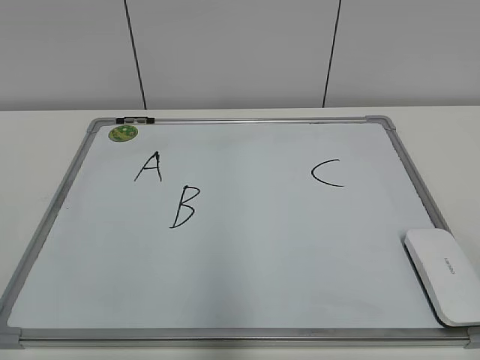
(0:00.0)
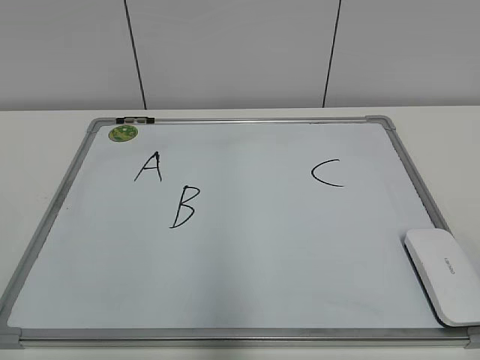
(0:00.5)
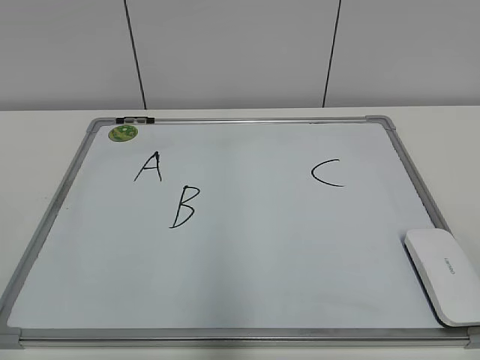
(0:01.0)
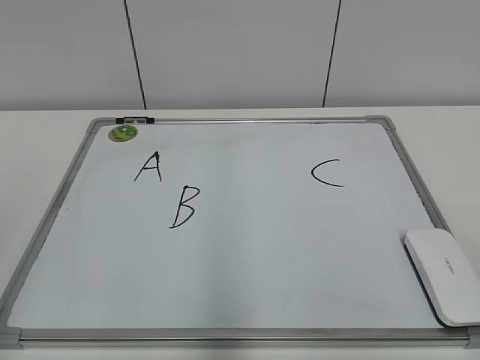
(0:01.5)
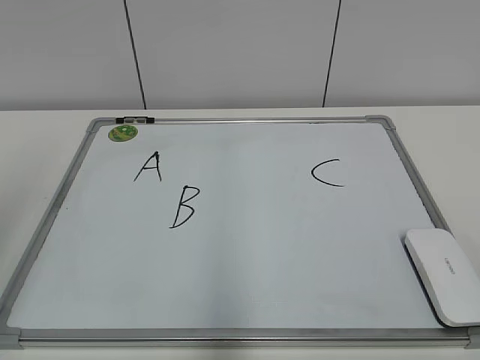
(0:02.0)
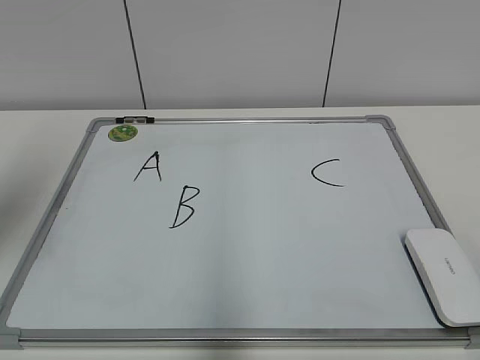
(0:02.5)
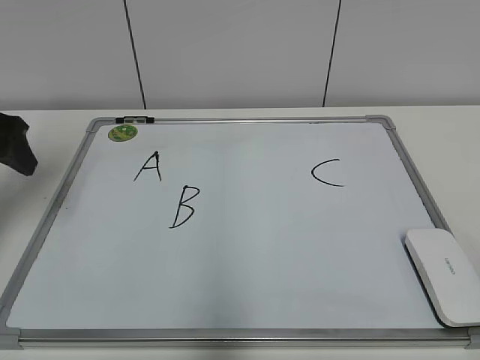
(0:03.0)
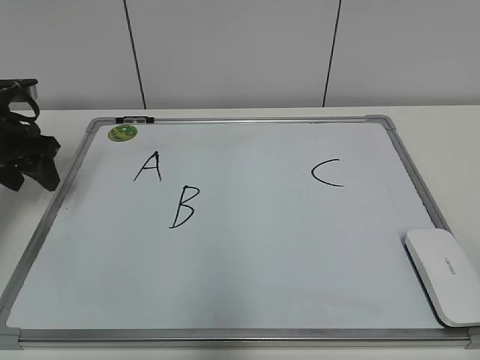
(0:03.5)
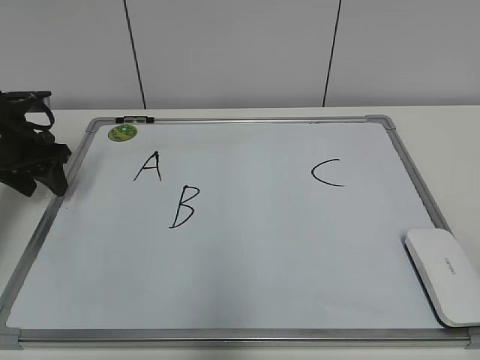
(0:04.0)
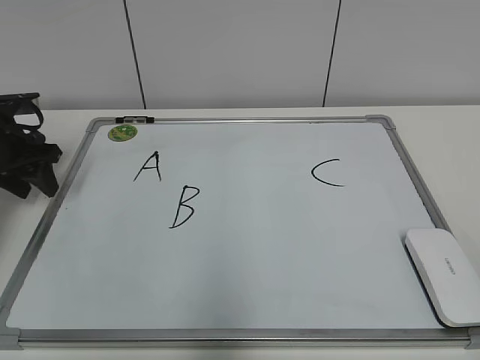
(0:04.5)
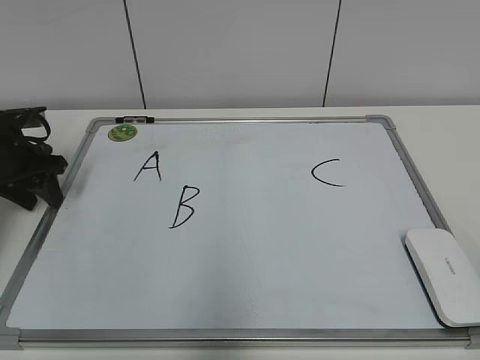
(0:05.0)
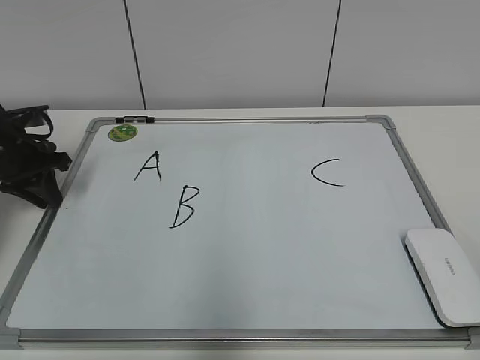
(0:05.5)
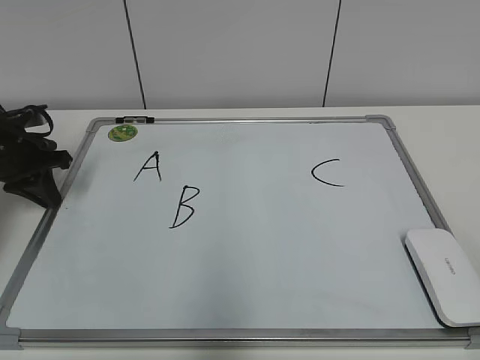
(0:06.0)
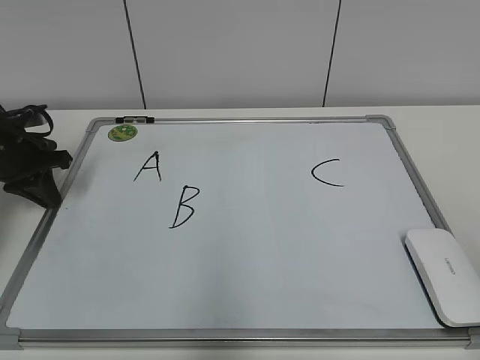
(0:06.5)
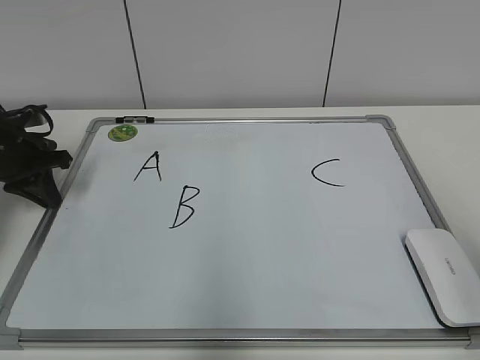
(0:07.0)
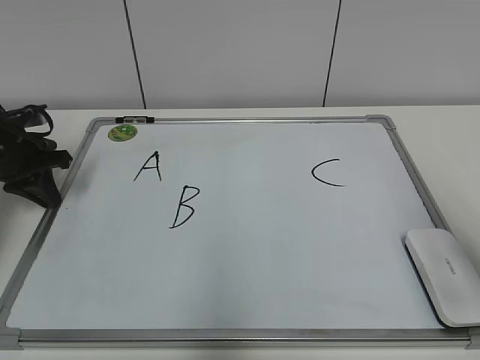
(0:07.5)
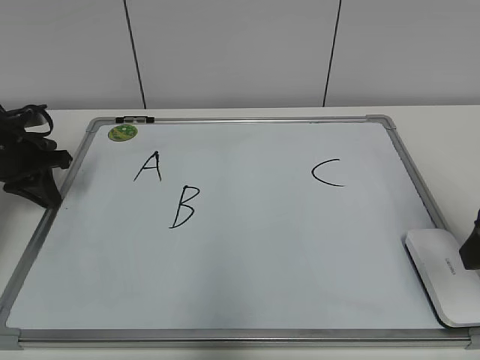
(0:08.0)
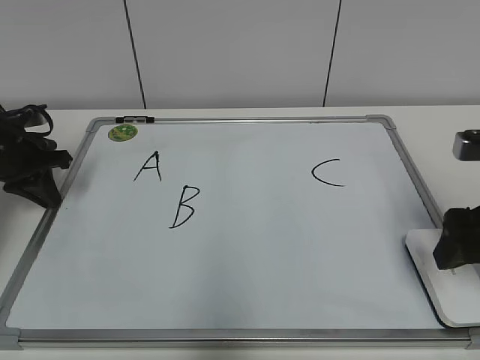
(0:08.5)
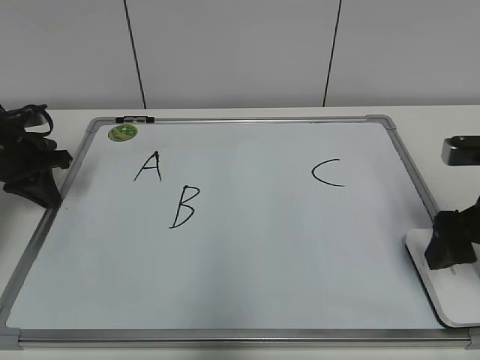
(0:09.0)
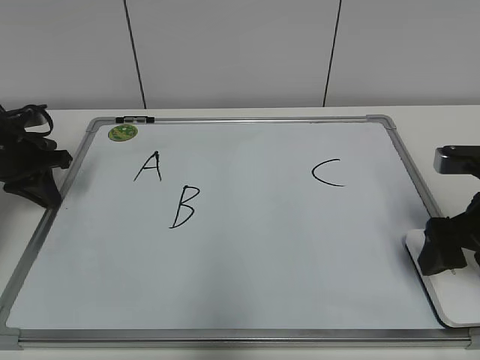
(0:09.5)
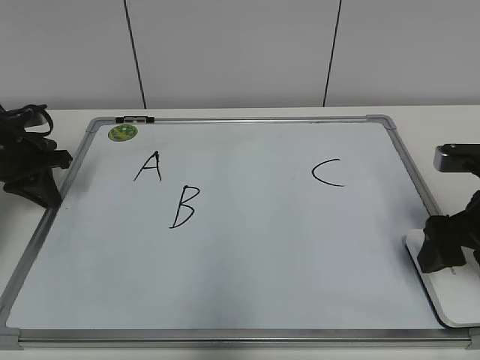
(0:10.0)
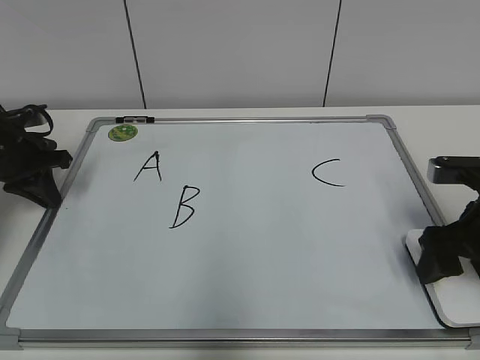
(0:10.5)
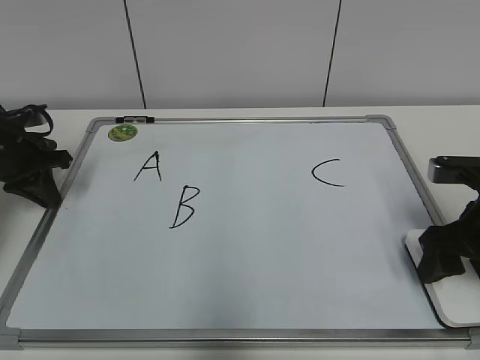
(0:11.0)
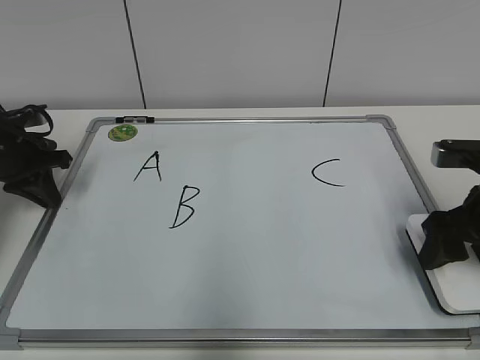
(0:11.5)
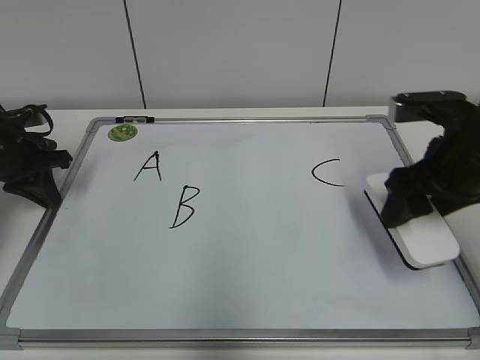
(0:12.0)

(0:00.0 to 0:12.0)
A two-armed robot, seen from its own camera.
Task of the whole recording: pick up the eraser on the blackboard and erase the letter "B".
Step, 0:00.0 - 0:05.5: Hold the drawing board steady with your left hand.
Step, 0:06.0 - 0:11.0: Grab the eraser with your right hand.
0:02.0 - 0:04.0: The left gripper goes roughly 30 cm forward and downward.
0:04.0 - 0:06.0: The left gripper closes up.
0:06.0 - 0:08.0: The right gripper shifts some 20 cm forward.
0:08.0 - 0:10.0: The right gripper moves downward and forward, about 10 cm, and opens its fingers.
0:10.0 - 0:12.0: The right gripper ends up approximately 5 cm from where it was, and closes its fingers.

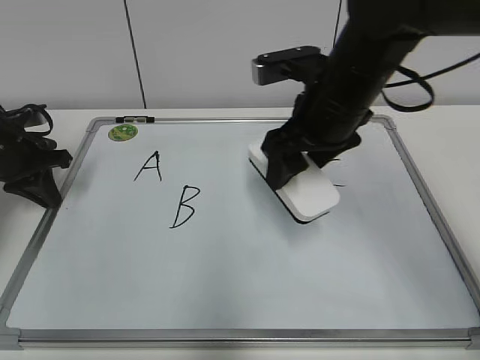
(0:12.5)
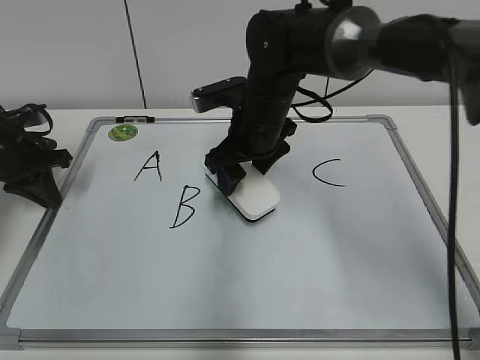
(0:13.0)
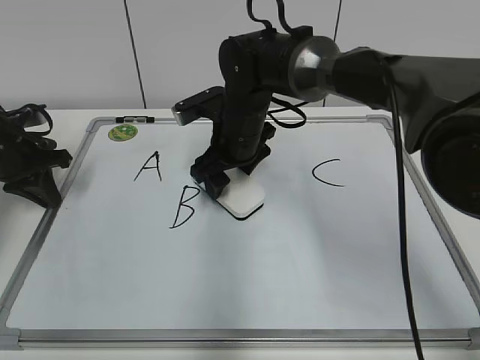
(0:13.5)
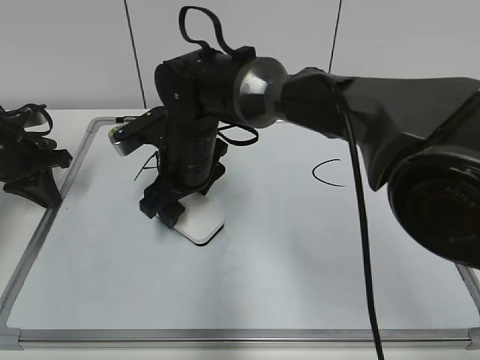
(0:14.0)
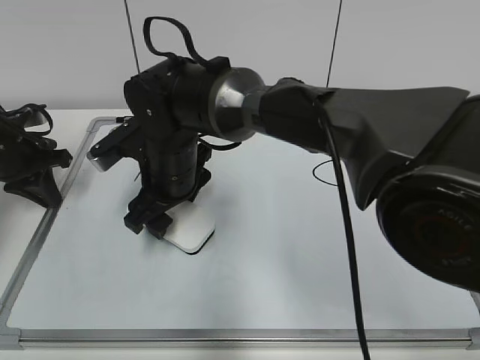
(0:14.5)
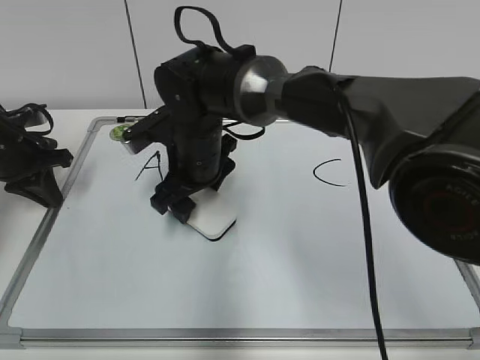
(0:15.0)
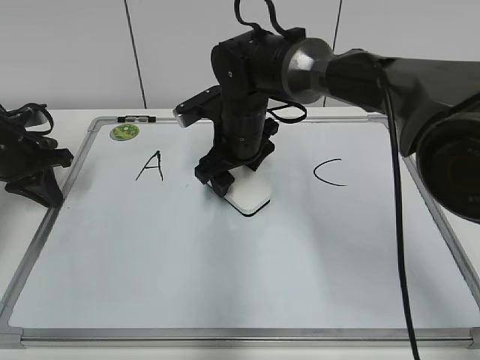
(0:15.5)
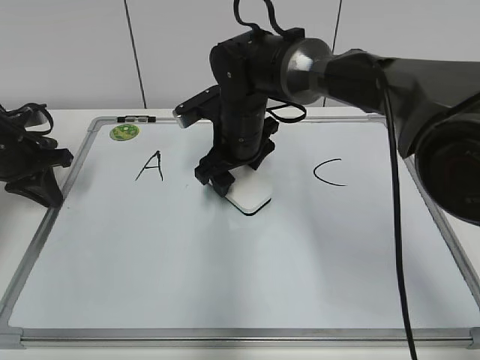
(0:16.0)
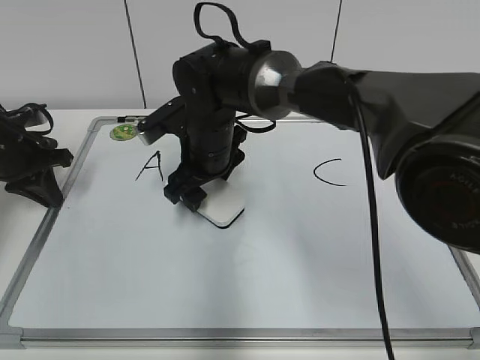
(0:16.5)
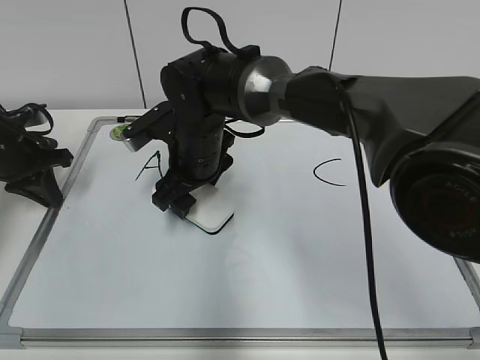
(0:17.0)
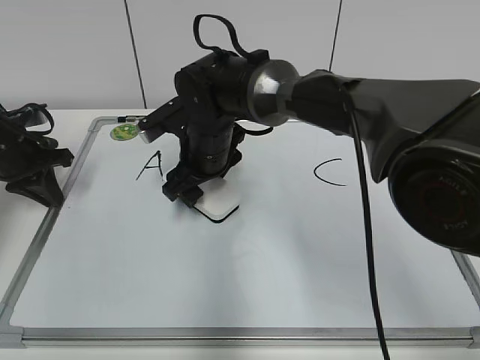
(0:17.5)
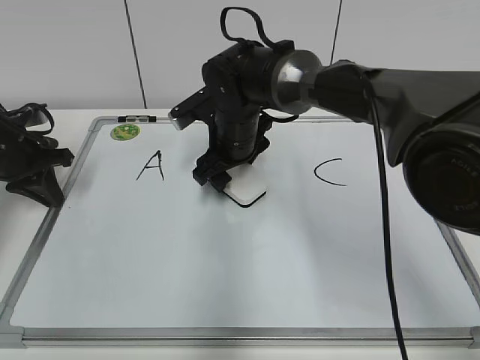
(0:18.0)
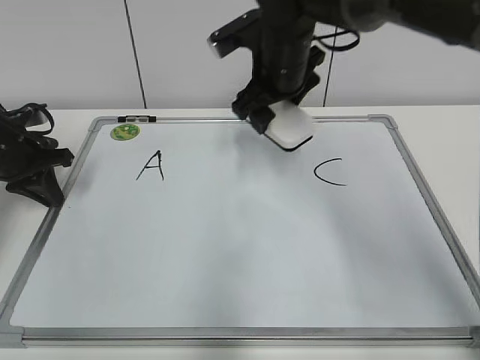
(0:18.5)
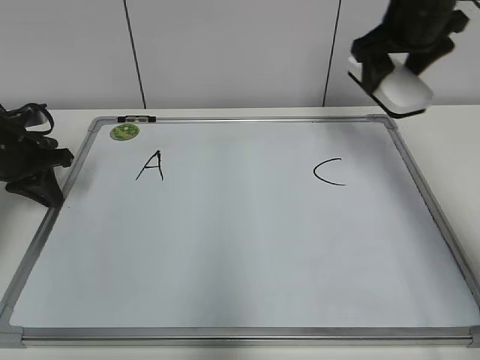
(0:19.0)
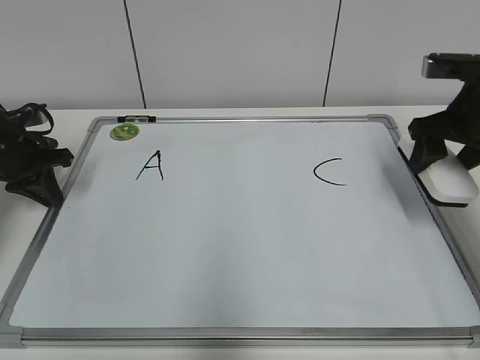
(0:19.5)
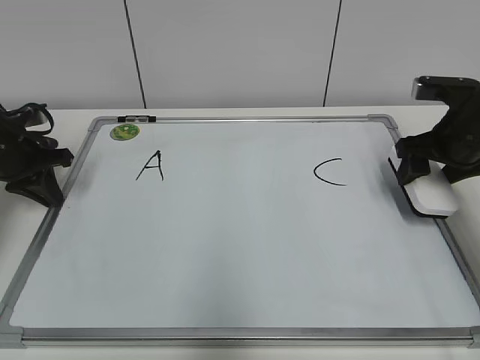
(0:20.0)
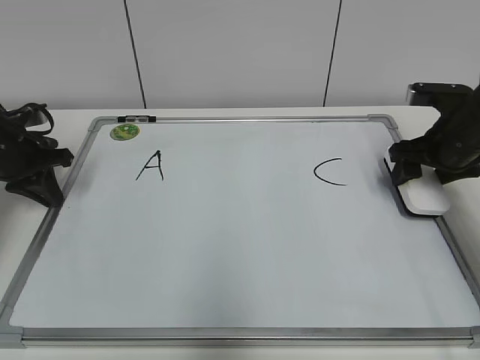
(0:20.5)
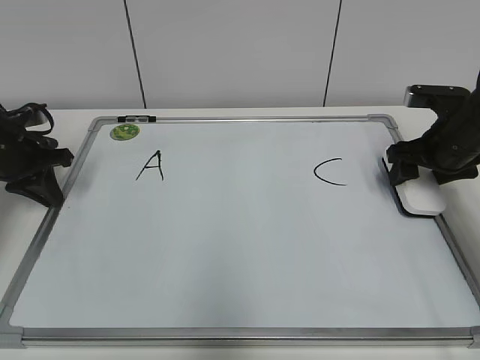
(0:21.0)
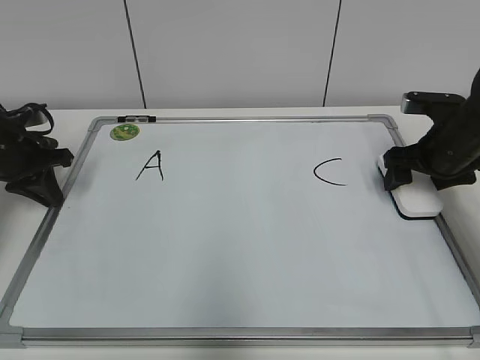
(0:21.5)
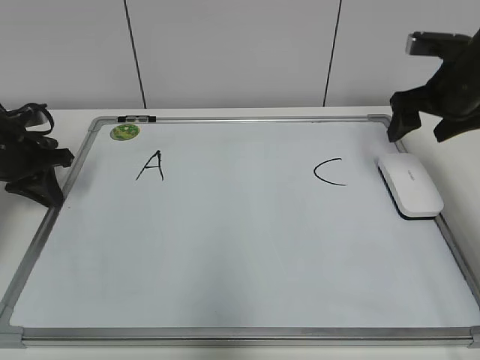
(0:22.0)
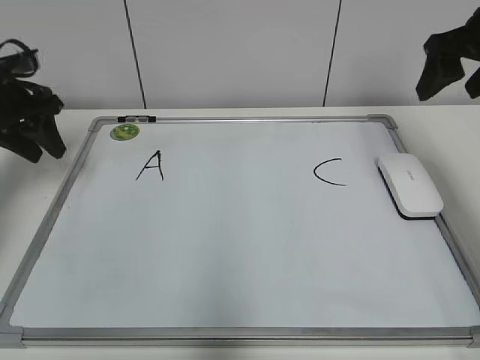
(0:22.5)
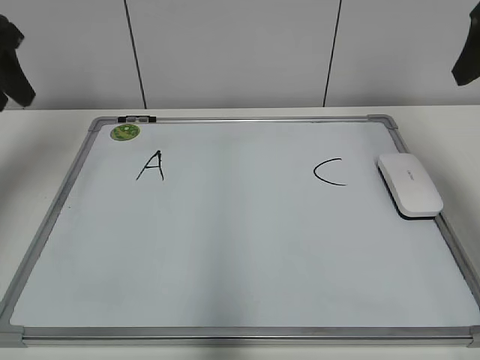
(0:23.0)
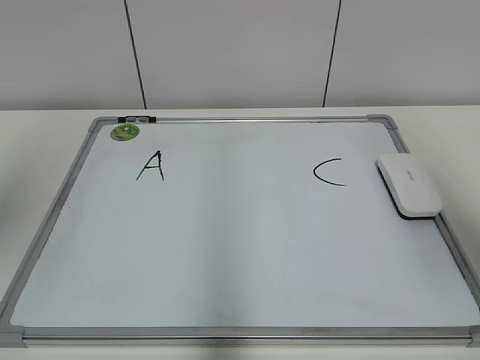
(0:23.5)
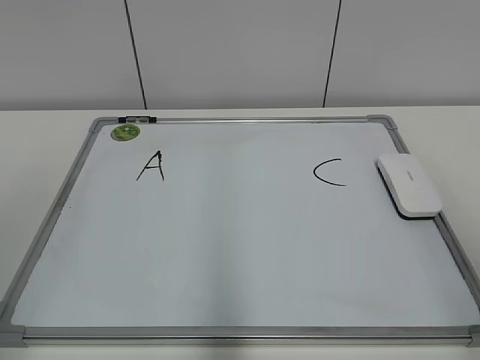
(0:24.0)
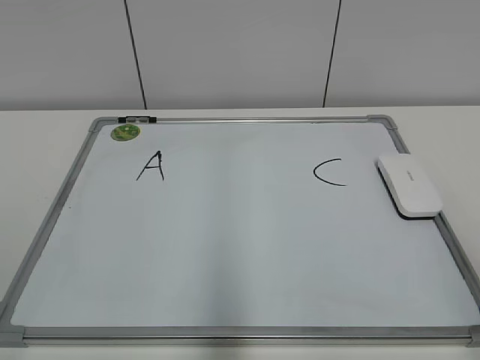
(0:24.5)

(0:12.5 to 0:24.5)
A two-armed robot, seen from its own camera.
Task of the whole recording: pick up the eraser on the blackboard and erase the letter "B".
Step, 0:12.5 - 0:17.5: Erase the letter B with your right hand.
Step, 0:18.0 - 0:21.0: Put down the eraser with your right hand.
0:12.5 - 0:14.5: The right gripper is displaced to the left and downward by approximately 20 cm.
0:16.5 - 0:18.5: The right gripper heads to the right and upward, covering roughly 10 cm.
0:18.5 - 0:20.5: The right gripper moves to the right, approximately 25 cm.
0:20.5 - 0:22.5: The left gripper goes some 5 cm upward, and opens; the right gripper goes approximately 15 cm upward, and opens its fingers.
0:22.5 - 0:24.5: Both grippers travel together backward, approximately 40 cm.

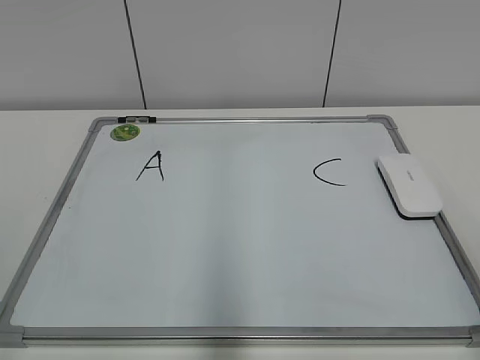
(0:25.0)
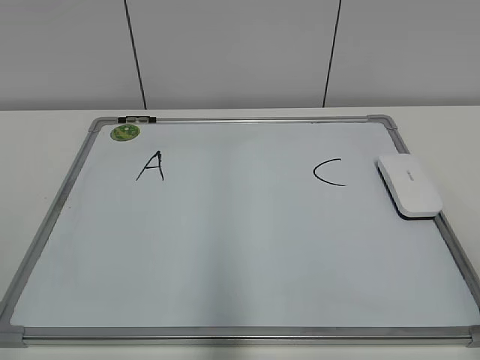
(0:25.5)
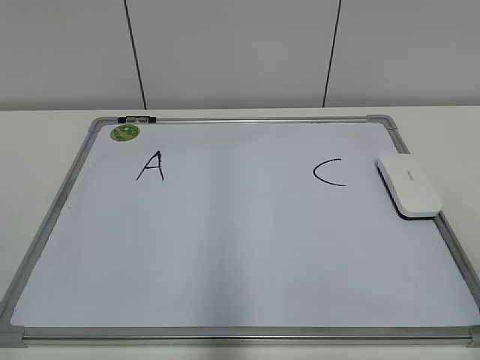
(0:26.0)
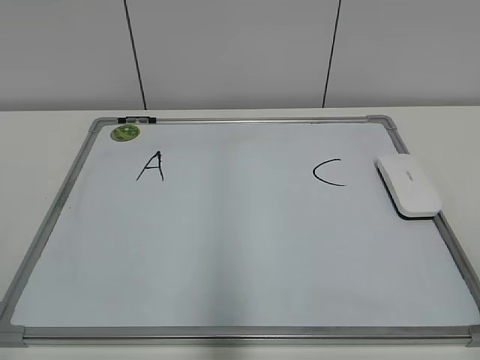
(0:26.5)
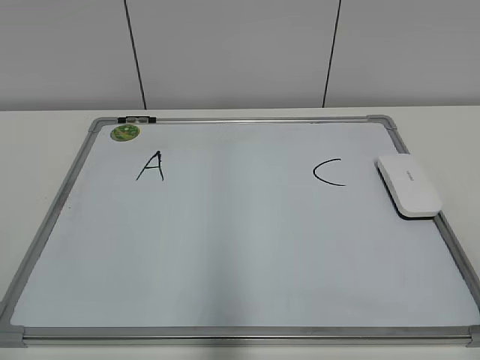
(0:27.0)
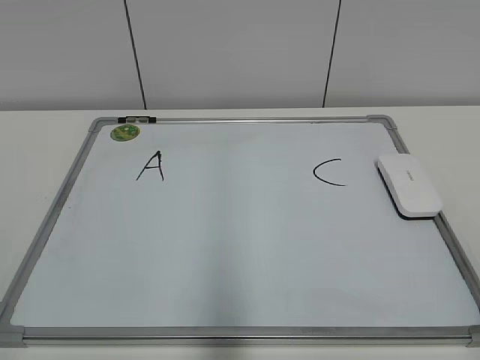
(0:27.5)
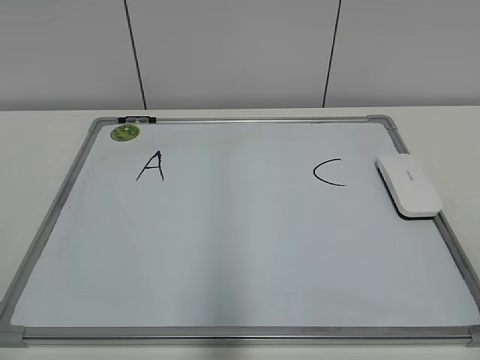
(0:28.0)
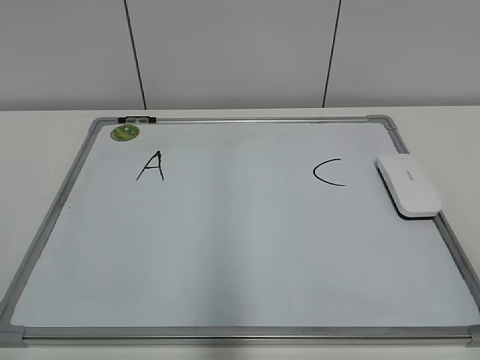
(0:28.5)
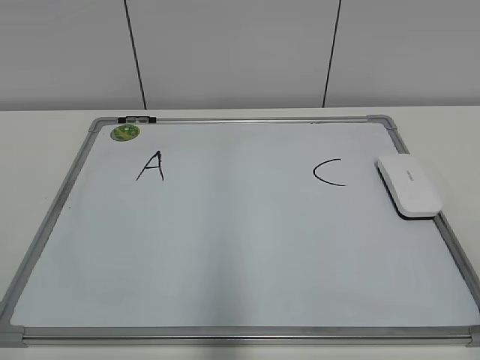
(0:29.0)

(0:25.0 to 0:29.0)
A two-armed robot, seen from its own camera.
Task of the whole recording: pick up the eraser on the blackboard and erase the letter "B".
0:27.0 - 0:29.0: Neither gripper changes place.
